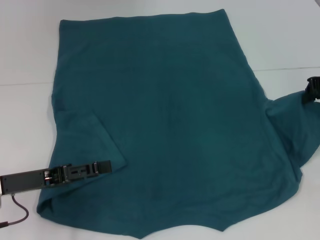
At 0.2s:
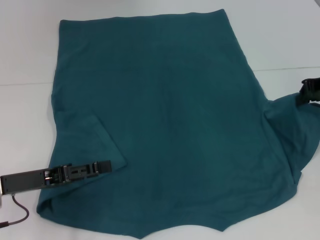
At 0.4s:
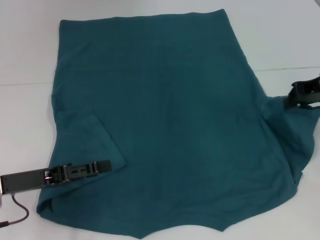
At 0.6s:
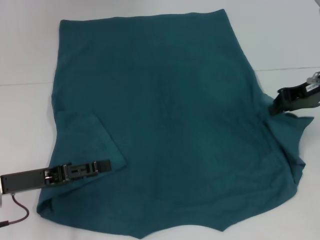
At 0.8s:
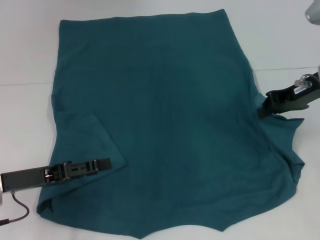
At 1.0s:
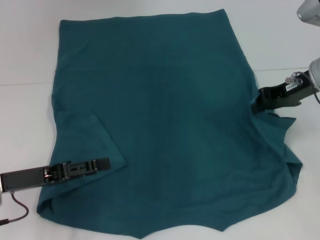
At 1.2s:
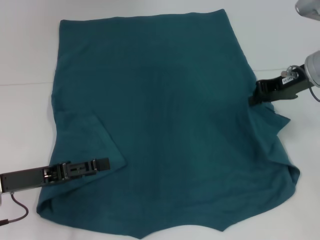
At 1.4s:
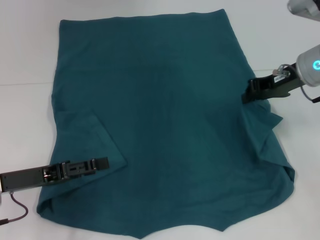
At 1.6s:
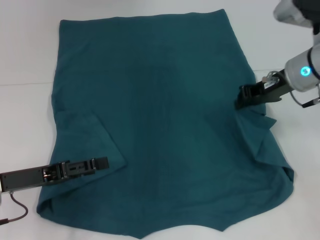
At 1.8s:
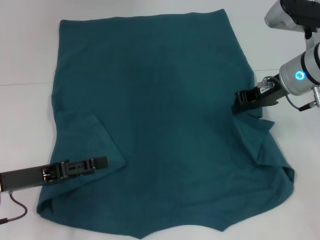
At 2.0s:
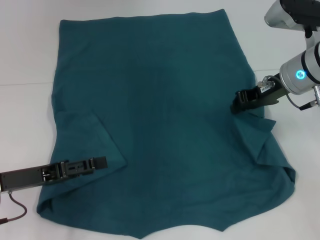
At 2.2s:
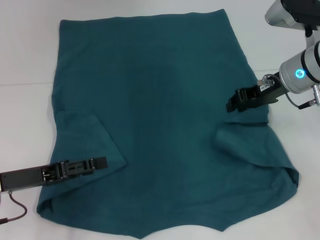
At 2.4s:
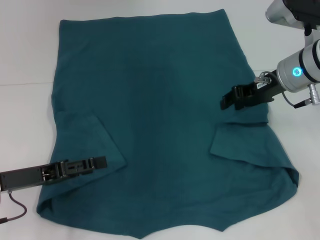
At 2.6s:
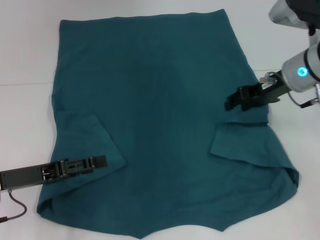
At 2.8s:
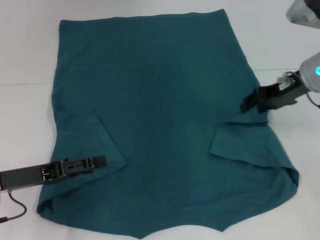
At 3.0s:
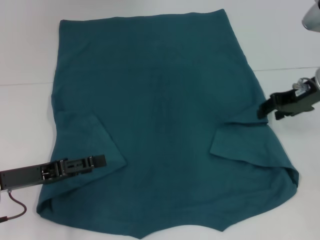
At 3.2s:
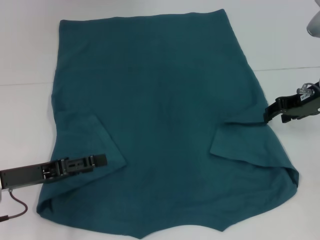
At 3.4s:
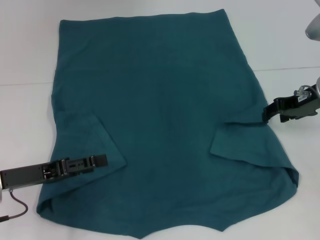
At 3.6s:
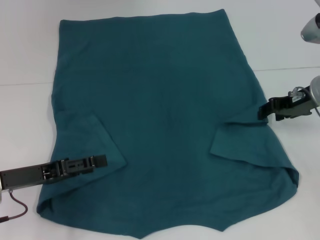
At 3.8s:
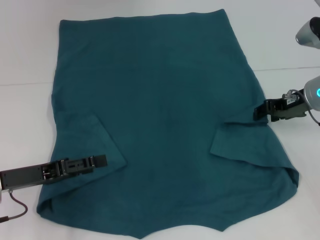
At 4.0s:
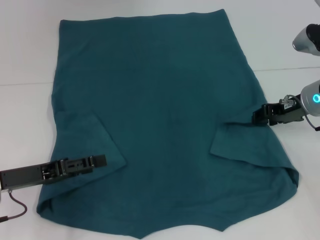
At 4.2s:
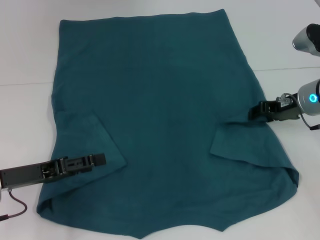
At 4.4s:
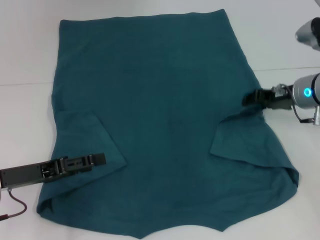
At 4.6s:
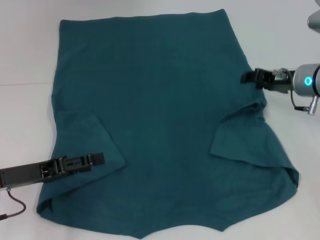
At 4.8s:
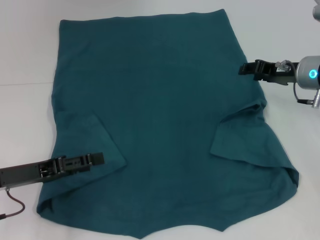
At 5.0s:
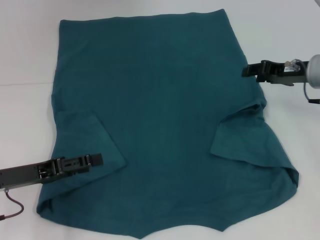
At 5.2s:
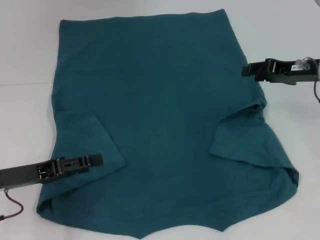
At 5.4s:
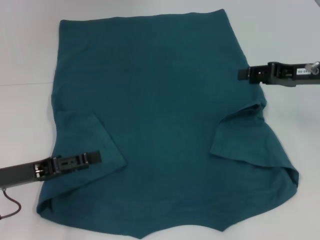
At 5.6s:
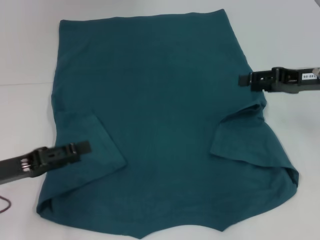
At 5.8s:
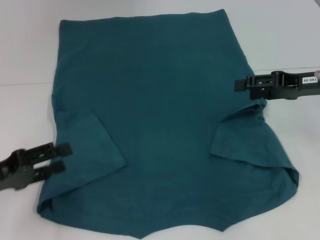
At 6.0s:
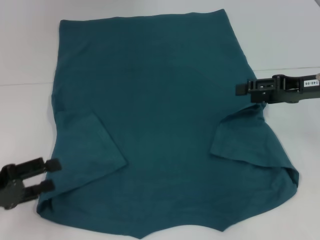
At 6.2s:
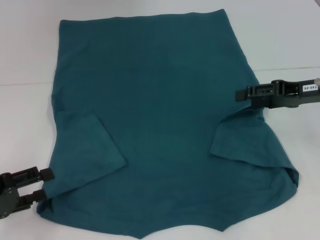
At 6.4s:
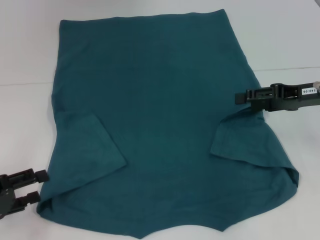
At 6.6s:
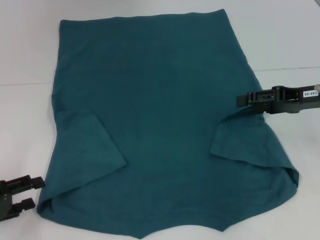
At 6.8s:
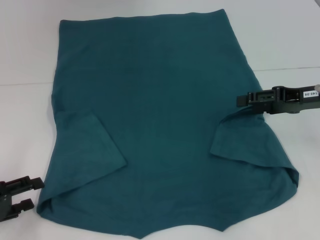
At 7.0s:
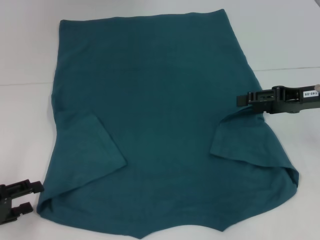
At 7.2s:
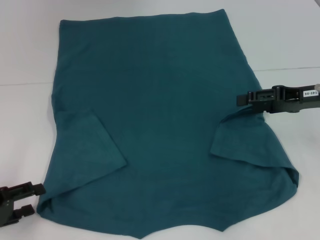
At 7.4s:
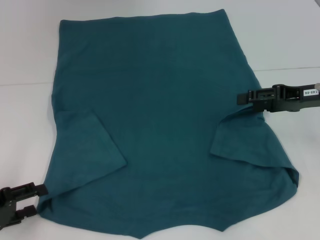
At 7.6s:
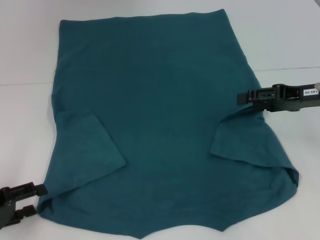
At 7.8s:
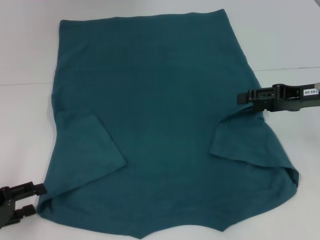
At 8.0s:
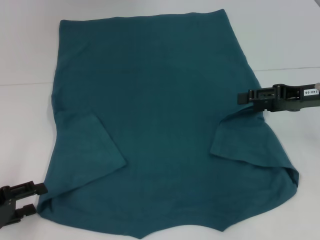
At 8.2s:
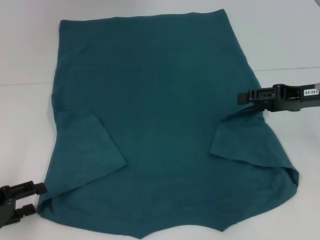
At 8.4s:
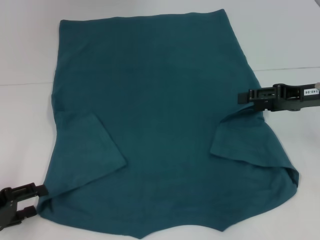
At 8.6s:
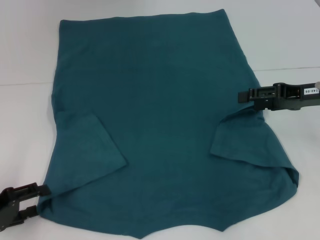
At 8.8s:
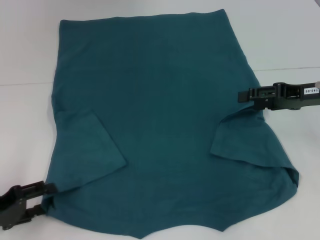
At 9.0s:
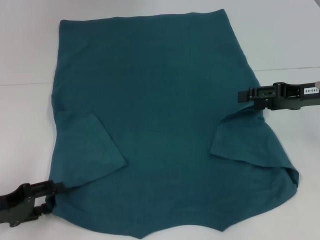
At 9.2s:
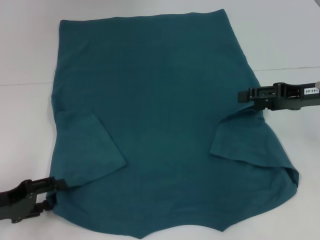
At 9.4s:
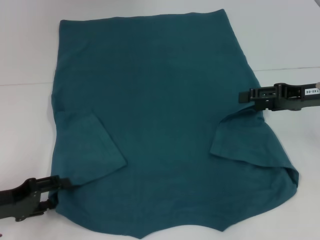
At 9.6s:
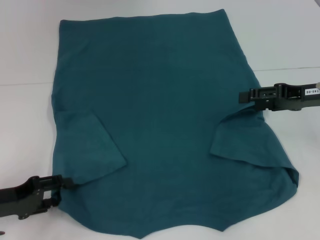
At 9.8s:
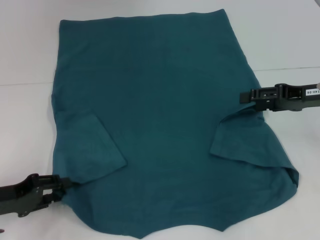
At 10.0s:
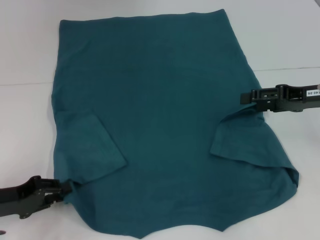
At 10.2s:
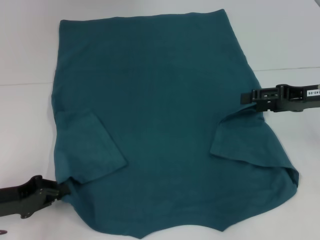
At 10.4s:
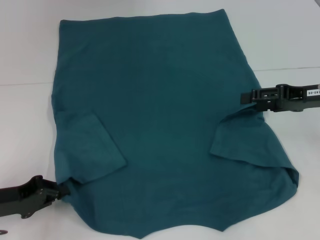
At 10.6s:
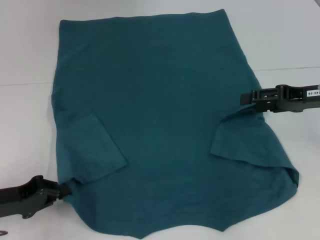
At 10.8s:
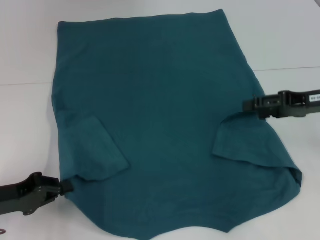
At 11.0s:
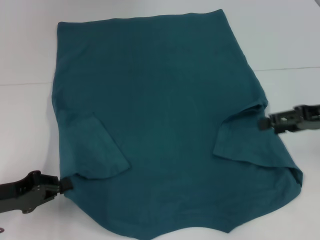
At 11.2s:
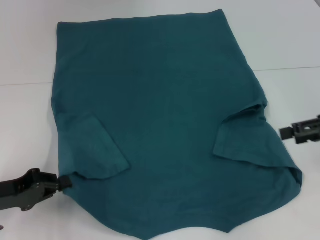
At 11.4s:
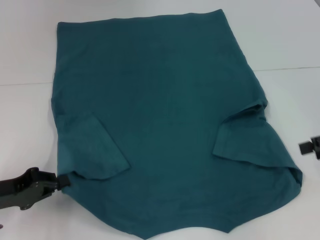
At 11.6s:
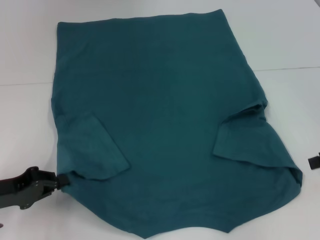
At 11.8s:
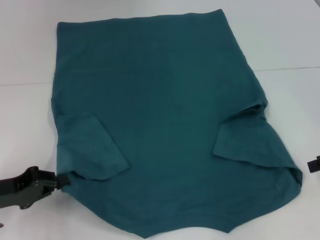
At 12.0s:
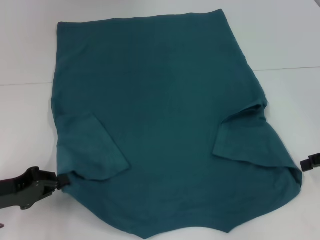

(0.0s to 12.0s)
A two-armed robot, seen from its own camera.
Step, 0.0s - 2.6s: Fold the bottom right sleeve to the right.
Step, 2.8s - 10.2s: Grab the bottom left corner with your left hand.
0.0s - 1.6s: The right gripper heads to the left, covering some 10 cm.
1.6s - 3.0s: The right gripper opens up.
3.0s - 4.4s: The right gripper goes approximately 5 cm downward.
4.4s - 6.0s: The right gripper heads upward, covering some 5 cm. Meanwhile the left gripper shifts approximately 5 cm to the left.
6.0s - 9.0s: The grippers stay close to where they were, moving slightly.
9.0s - 10.4s: The left gripper closes.
10.4s - 12.0s: The right gripper travels to the right by some 5 cm.

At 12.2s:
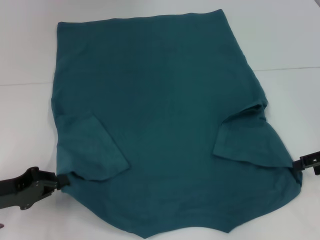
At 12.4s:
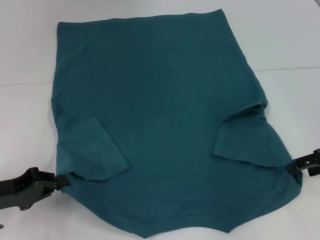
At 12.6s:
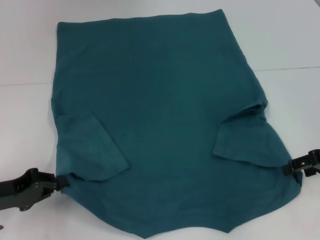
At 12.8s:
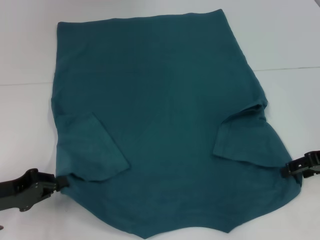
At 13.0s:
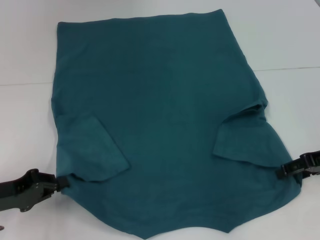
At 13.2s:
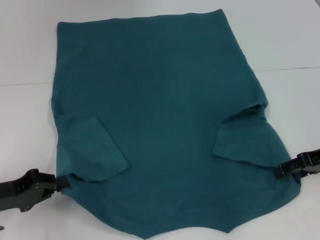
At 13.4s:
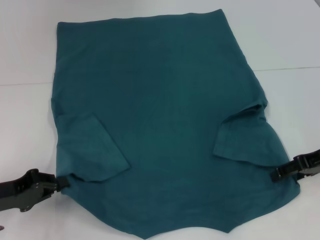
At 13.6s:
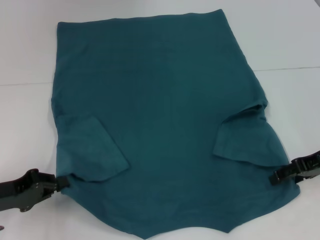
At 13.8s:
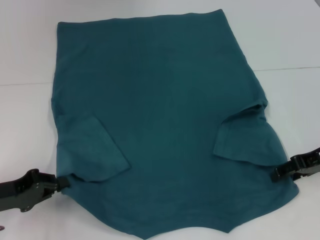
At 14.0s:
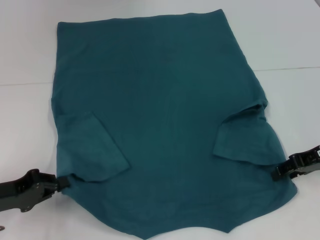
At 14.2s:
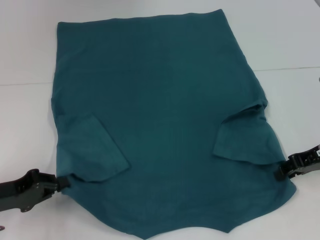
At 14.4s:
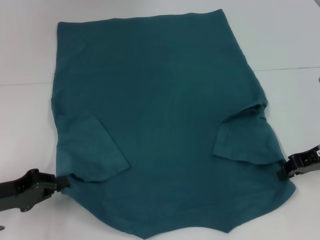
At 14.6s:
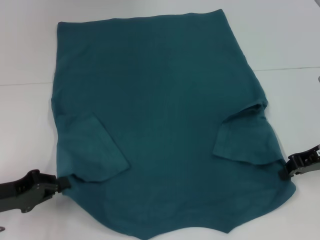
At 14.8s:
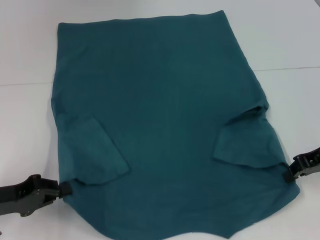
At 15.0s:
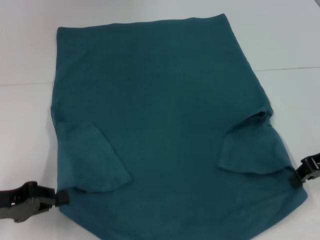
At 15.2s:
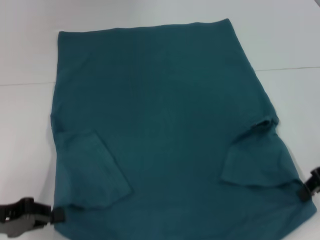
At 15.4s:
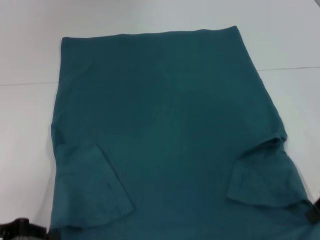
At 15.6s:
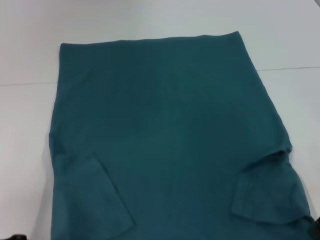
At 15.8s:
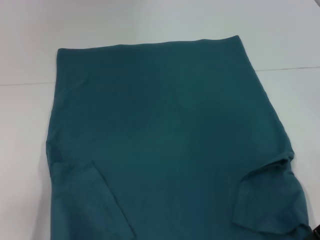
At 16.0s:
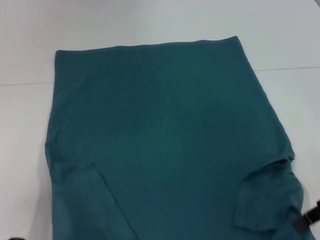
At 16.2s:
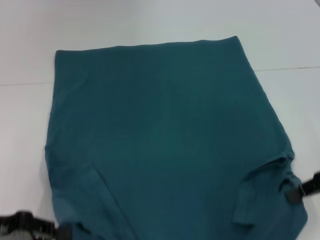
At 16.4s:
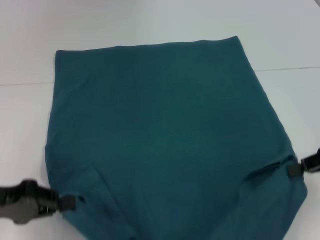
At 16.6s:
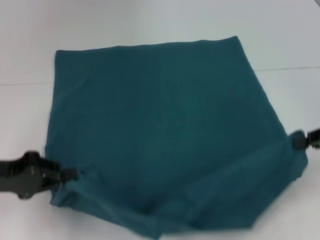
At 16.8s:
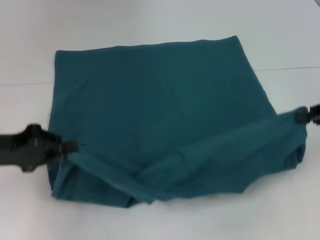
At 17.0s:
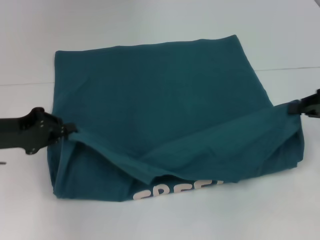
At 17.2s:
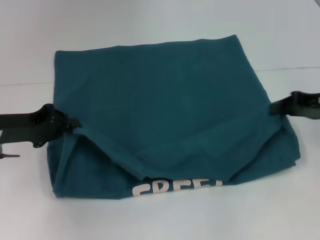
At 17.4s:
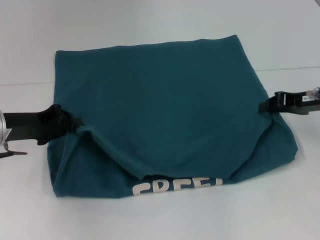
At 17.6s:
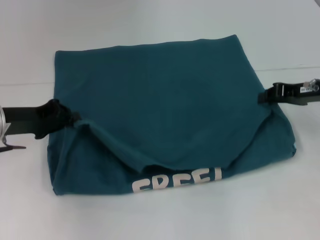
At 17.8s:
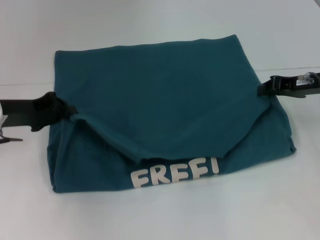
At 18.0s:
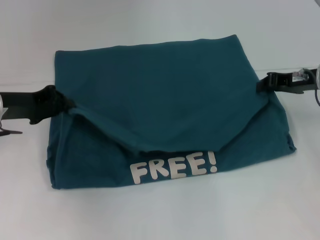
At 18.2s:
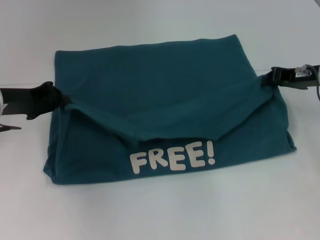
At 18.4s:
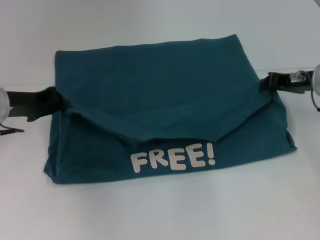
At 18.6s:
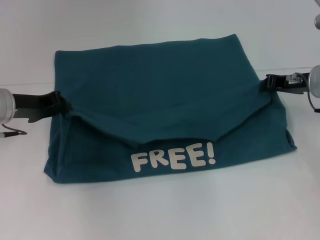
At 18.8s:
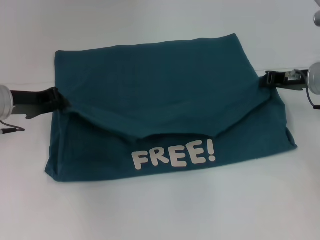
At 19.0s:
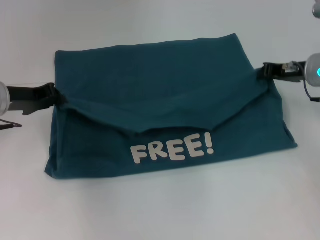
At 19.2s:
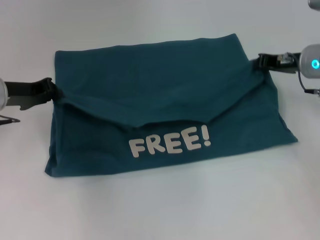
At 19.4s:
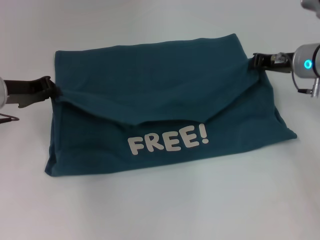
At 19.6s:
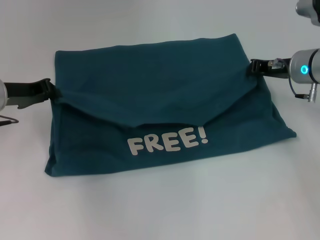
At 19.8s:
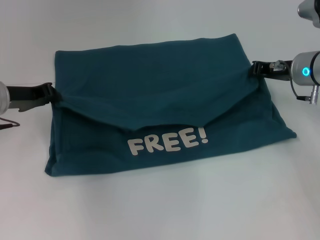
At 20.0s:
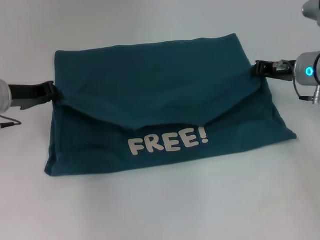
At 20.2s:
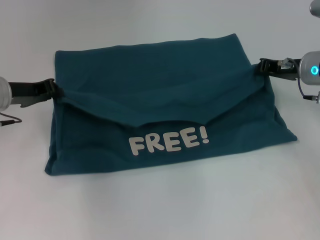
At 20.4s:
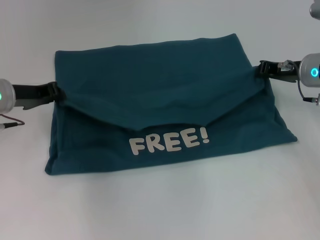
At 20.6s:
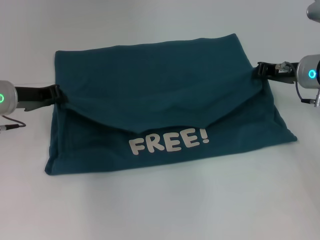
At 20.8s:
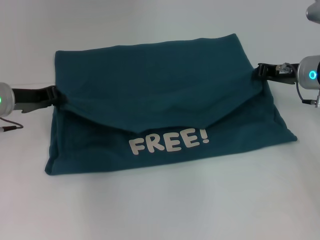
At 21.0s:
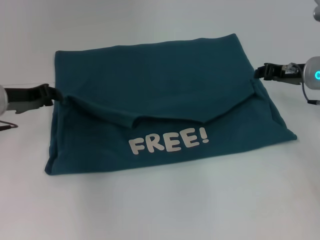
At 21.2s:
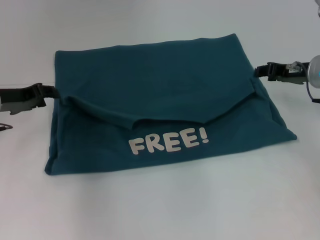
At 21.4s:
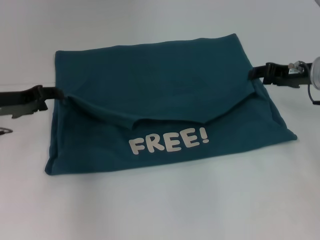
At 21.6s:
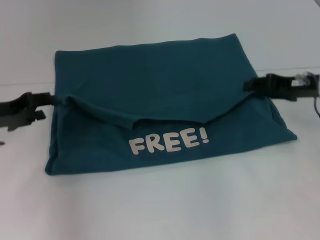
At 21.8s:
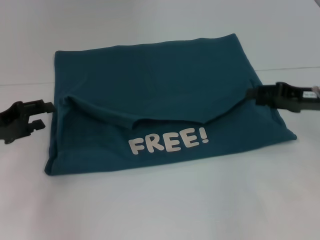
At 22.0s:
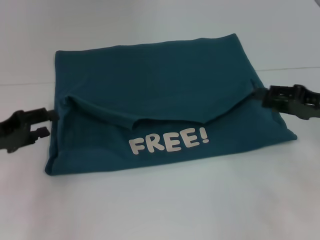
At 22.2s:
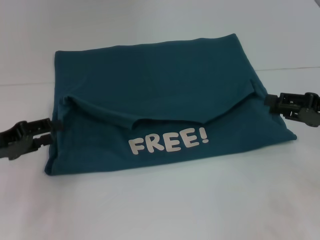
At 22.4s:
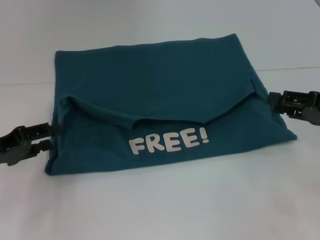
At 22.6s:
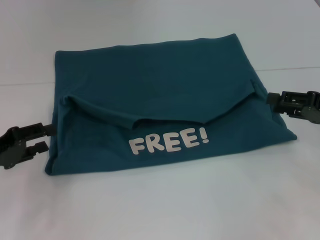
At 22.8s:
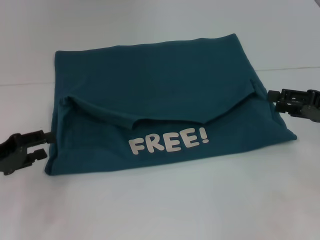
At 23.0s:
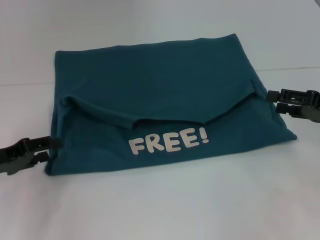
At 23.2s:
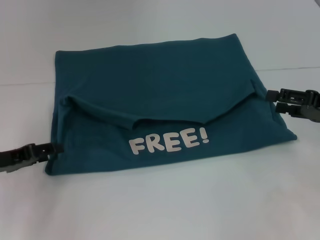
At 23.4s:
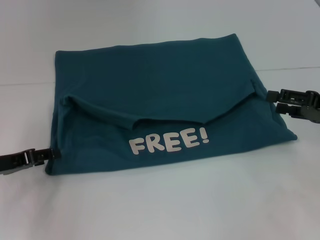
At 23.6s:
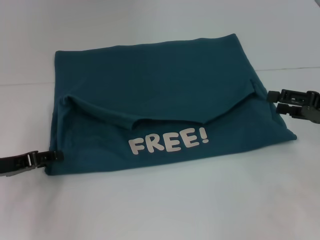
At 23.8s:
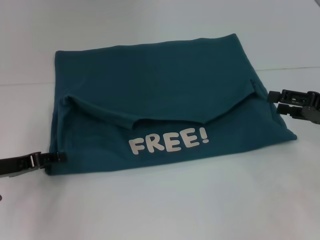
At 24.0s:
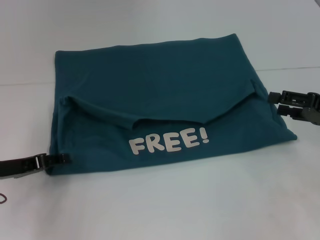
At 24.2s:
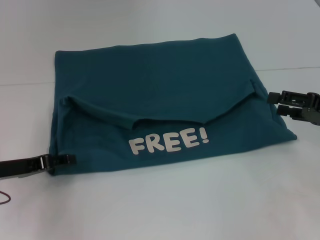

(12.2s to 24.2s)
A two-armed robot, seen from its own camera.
Step, 14.8s - 21.6s: Fold the clothes to the left.
Step, 14.8s - 21.6s: Fold the clothes to the right.
12.2s - 13.8s: The right gripper shifts approximately 5 cm to the left.
13.8s - 15.2s: The right gripper closes its fingers.
15.2s - 16.6s: The left gripper ends up approximately 5 cm from where it was.
16.6s - 18.2s: The left gripper travels forward by roughly 10 cm; the right gripper travels forward and to the left by roughly 10 cm.
18.2s - 21.2s: The grippers make only small movements.
21.2s - 22.6s: The left gripper shifts approximately 10 cm backward, and opens up. The right gripper goes approximately 10 cm backward and to the right.
